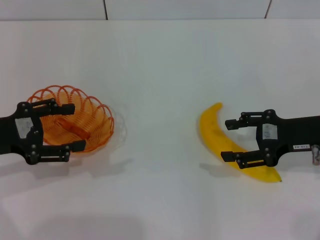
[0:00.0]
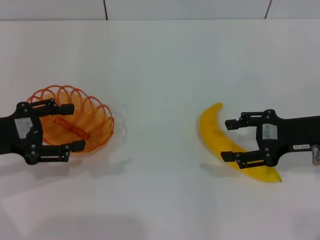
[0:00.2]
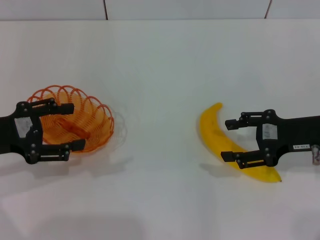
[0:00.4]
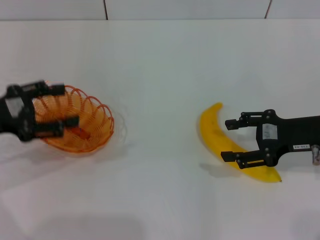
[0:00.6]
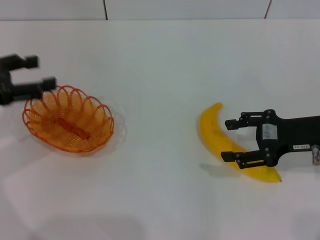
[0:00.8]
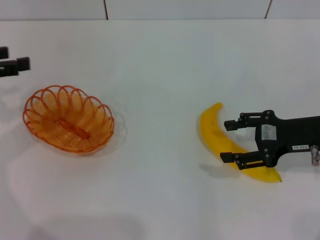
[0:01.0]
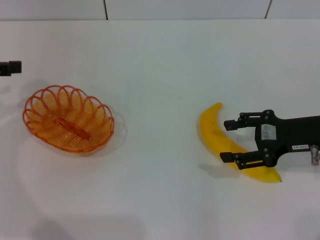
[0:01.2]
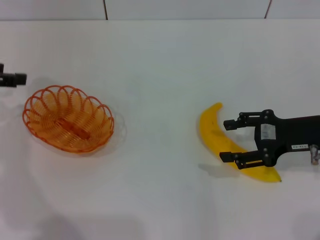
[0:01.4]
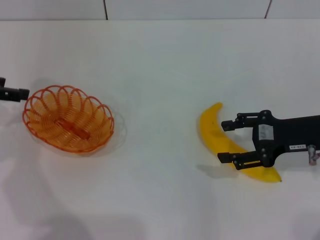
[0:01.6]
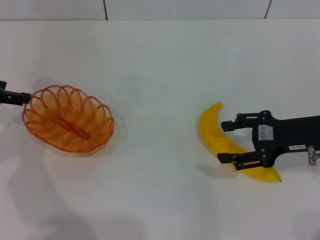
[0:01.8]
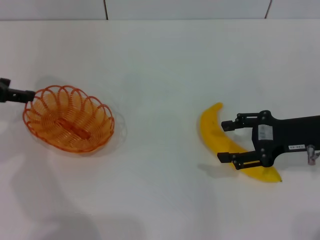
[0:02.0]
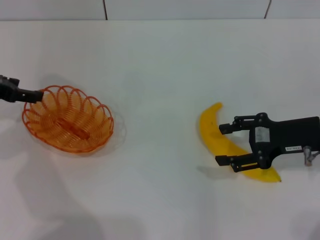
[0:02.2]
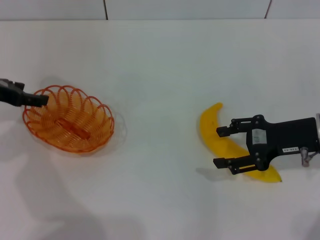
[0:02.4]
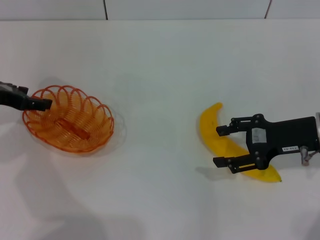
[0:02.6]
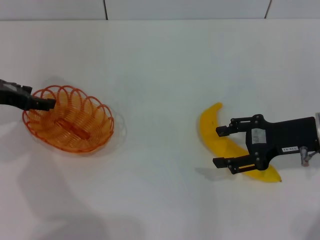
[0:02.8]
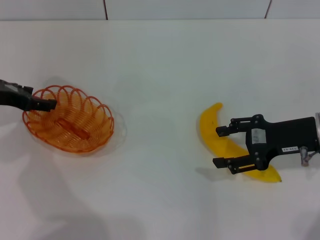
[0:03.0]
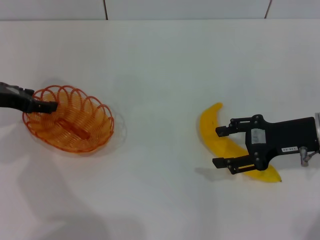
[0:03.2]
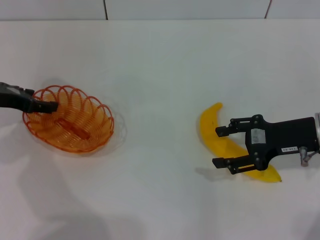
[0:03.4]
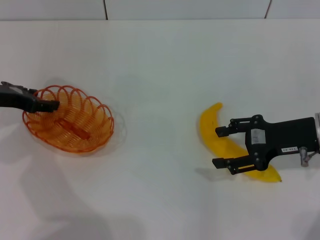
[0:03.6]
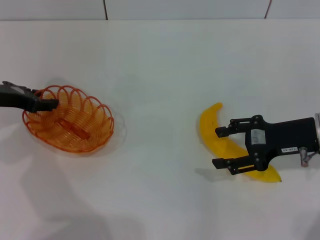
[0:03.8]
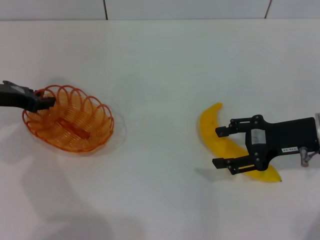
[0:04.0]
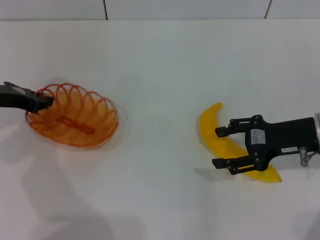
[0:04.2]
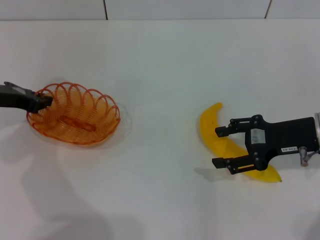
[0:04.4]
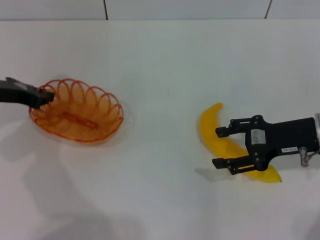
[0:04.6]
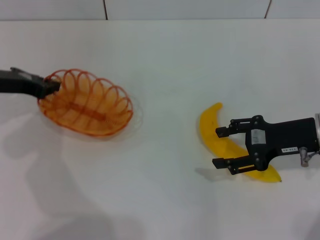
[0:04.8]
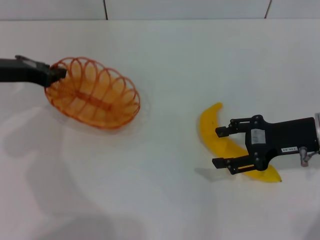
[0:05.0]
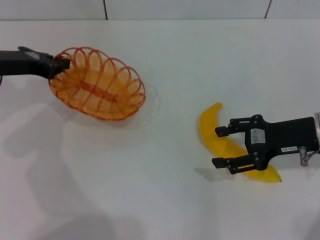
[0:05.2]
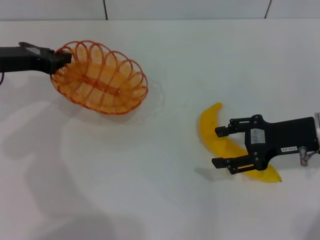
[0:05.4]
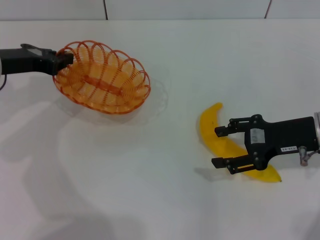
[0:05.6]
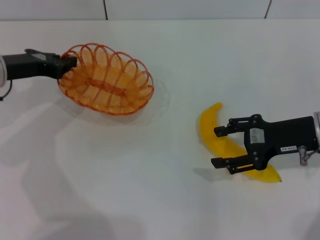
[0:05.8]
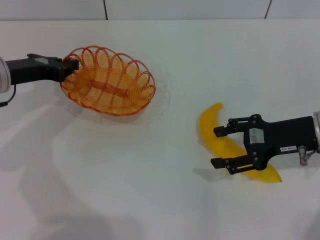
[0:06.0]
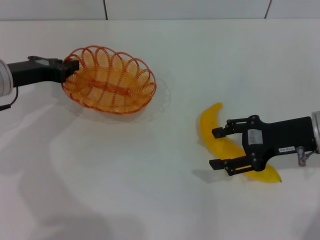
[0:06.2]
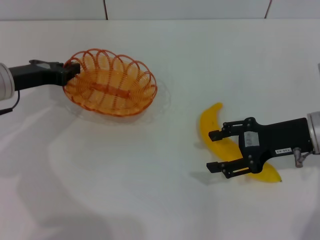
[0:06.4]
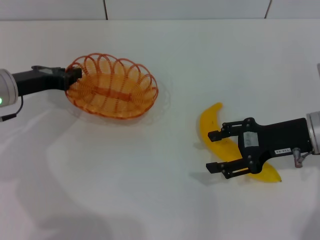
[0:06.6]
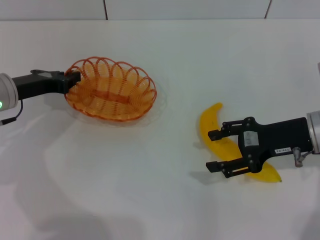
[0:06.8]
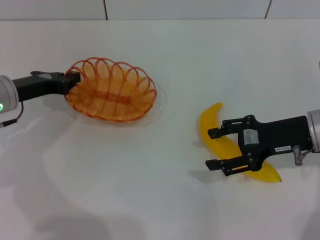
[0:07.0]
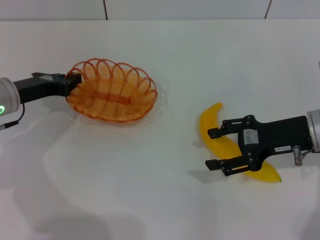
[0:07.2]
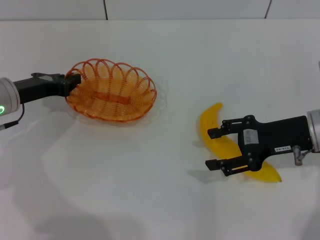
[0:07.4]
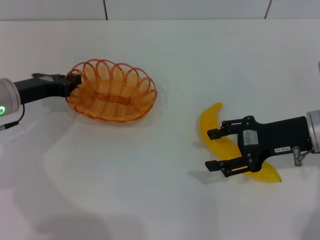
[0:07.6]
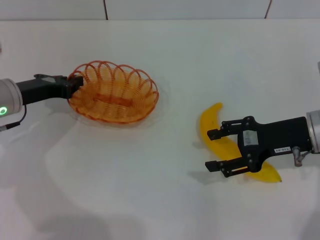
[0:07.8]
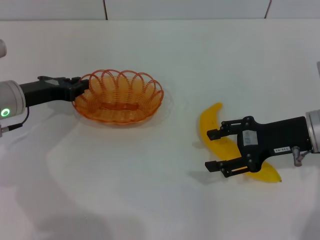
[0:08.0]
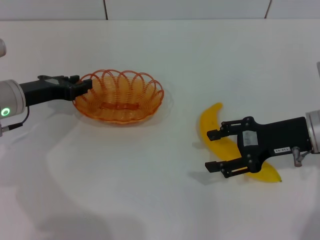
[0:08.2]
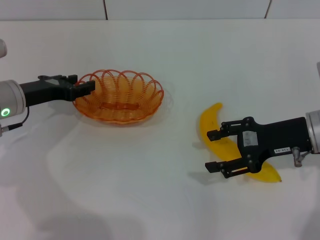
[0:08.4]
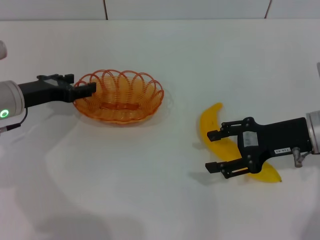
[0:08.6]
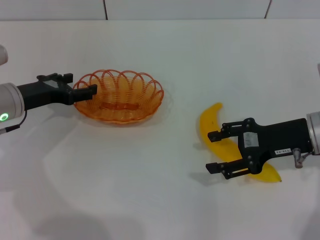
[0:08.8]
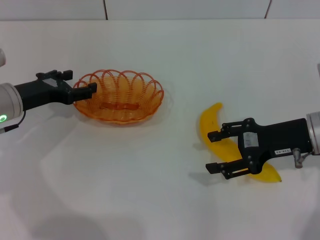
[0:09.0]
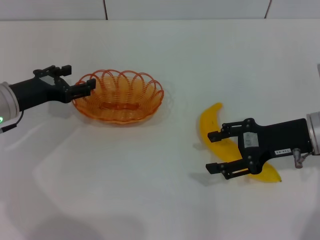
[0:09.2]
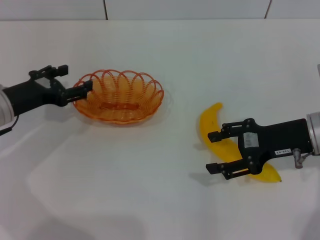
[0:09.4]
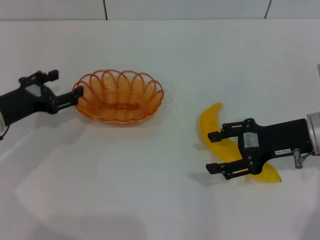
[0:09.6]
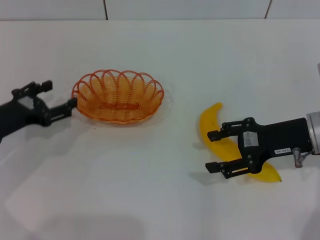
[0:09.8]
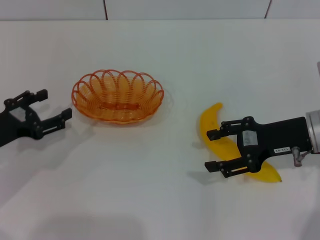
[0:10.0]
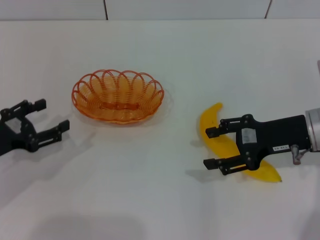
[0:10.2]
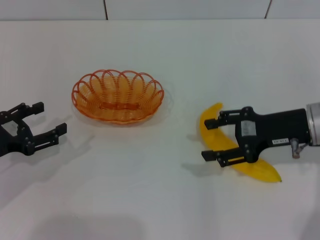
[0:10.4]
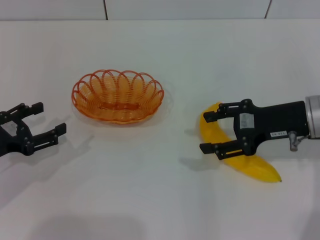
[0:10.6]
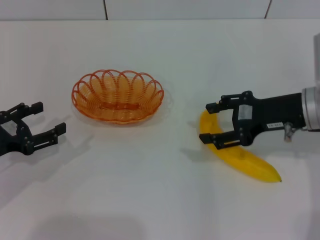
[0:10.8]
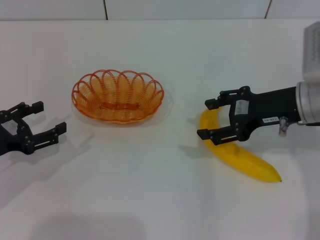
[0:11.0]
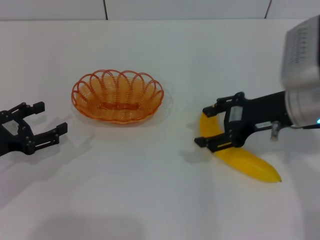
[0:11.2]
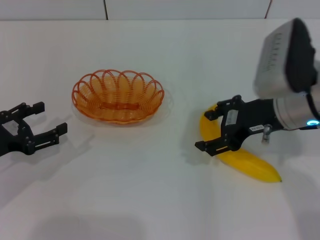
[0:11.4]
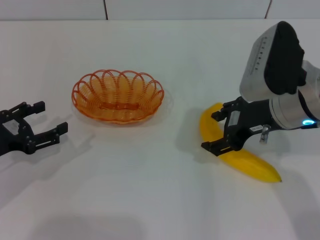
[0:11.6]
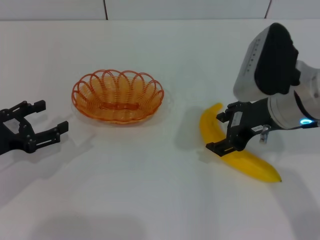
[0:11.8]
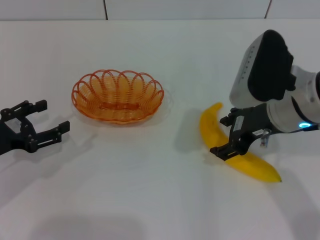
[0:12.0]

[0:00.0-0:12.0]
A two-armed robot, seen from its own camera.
Step, 0.0 to 5.2 s: Pick up the basket with the left gripper.
Step, 5.4 to 9.0 s: Place the basket in the center of view with the left gripper.
0.0 to 1.6 s: The left gripper heads forward and upward, covering roughly 10 cm.
1.6 to 3.0 s: The left gripper ends up about 5 cm from where it was.
3.0 to 4.4 s: The left gripper closes its fingers.
4.4 to 6.0 s: The grippers make only small movements.
6.0 to 7.6 s: The grippers stay close to where they were, moving slightly.
7.6 to 9.0 s: The left gripper opens its fingers.
9.0 to 10.4 s: The left gripper heads backward and to the left, covering approximately 10 cm.
10.4 to 12.0 s: The right gripper goes some 5 cm to the left.

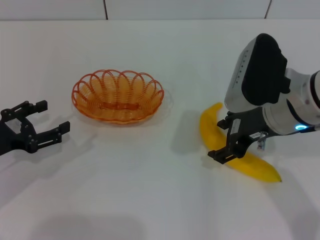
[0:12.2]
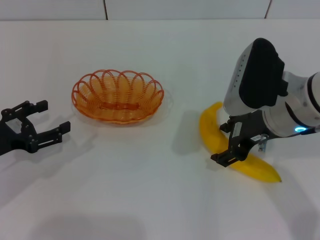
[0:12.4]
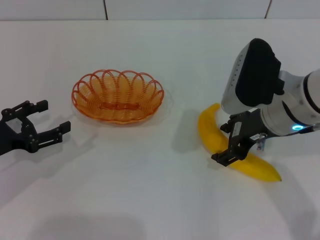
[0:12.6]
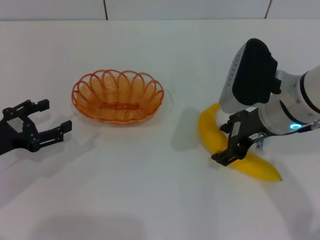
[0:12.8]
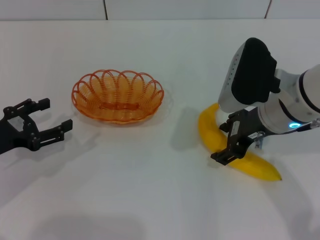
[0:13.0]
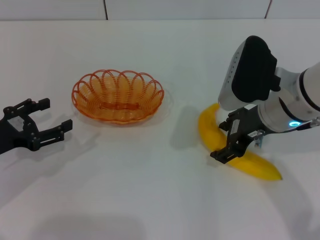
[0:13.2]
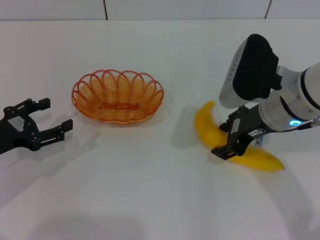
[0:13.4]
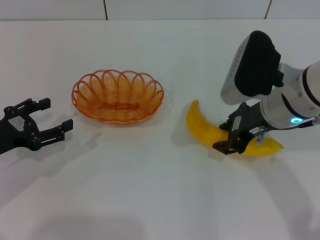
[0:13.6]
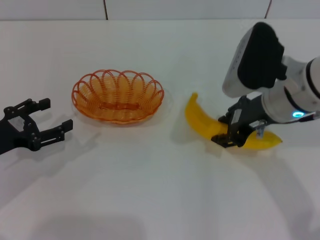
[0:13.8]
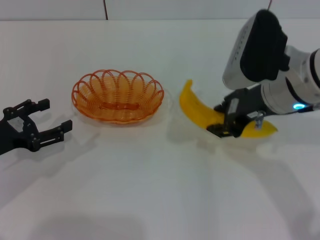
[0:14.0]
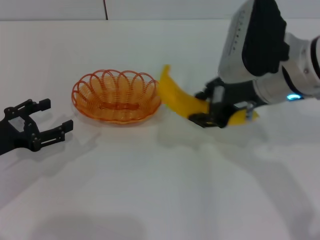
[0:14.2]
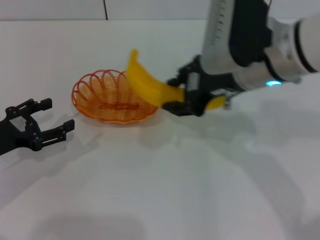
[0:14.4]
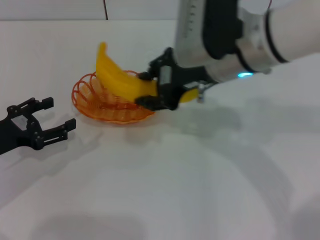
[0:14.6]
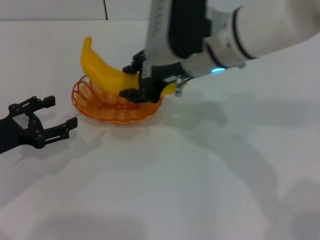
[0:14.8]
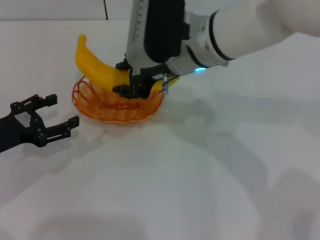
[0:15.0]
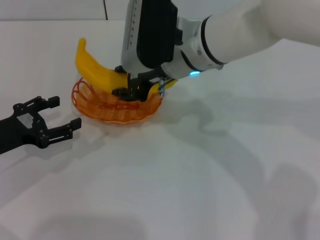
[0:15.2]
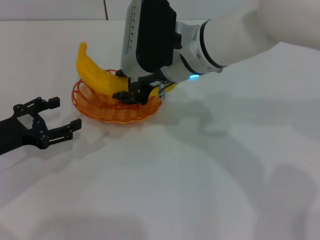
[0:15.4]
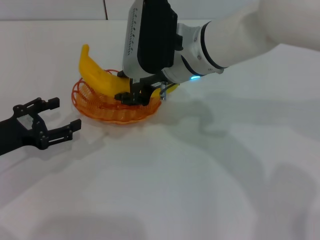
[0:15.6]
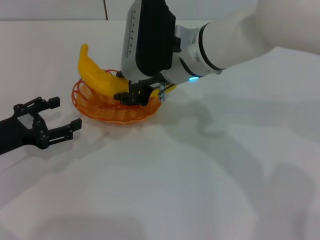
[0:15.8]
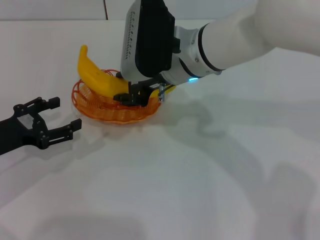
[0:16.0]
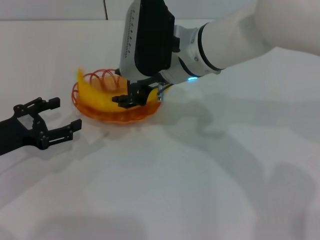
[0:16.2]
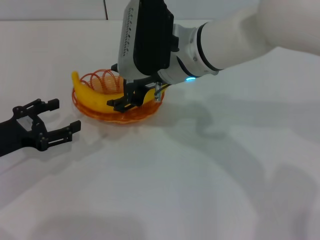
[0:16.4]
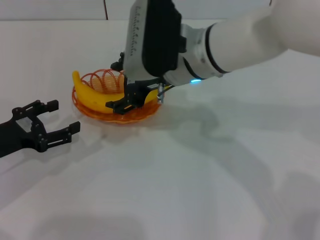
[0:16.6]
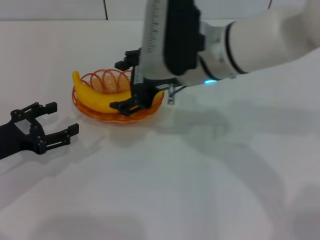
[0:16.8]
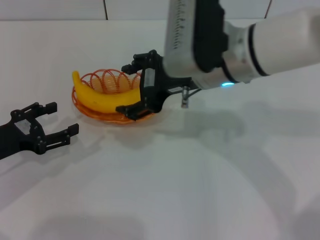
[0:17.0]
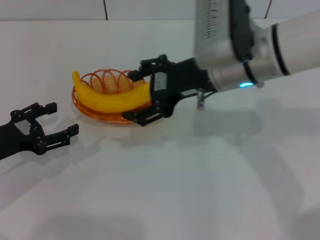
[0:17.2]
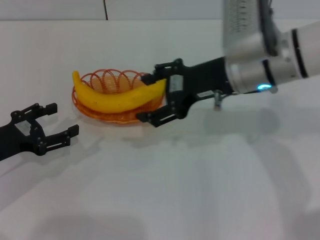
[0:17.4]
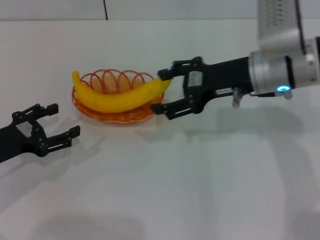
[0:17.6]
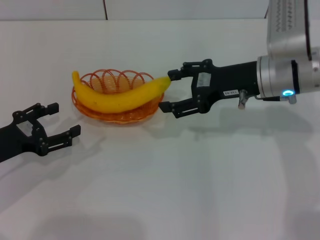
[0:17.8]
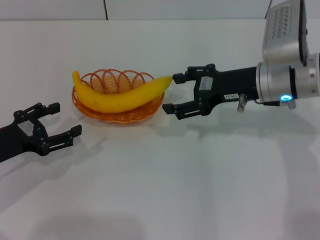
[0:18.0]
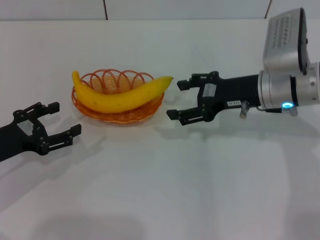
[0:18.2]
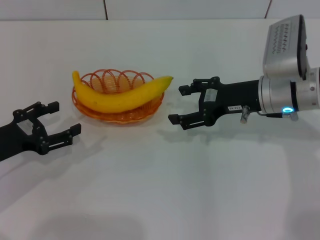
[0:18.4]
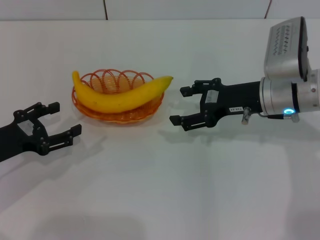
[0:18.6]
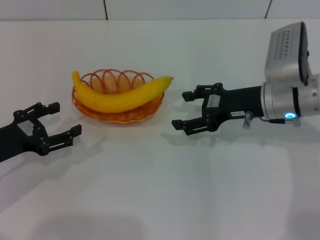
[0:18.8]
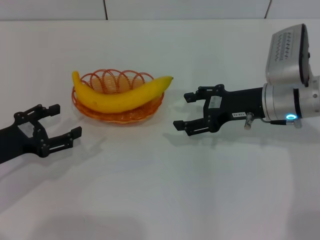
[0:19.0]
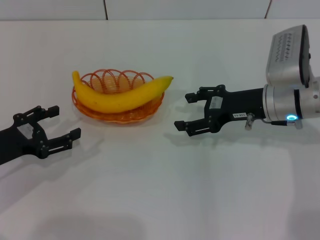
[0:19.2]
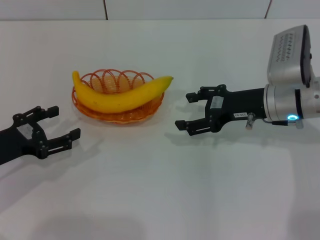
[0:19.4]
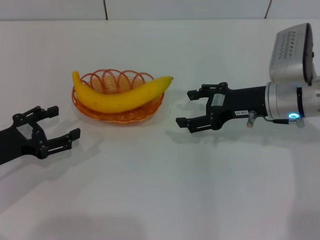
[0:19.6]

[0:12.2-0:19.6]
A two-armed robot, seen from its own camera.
Step, 12.2 to 14.4 s: Pick up the banana with the right gripper.
Step, 14.6 to 17.0 s: Place the banana into the basket with the right gripper.
12.2 to 13.6 s: The grippers move only a little.
13.6 to 15.2 s: The right gripper is displaced to the left and forward by approximately 15 cm.
15.2 to 16.6 s: The right gripper opens its fingers.
16.6 to 18.2 s: The right gripper travels to the right and downward by roughly 15 cm.
18.2 to 19.6 s: The grippers make only small movements.

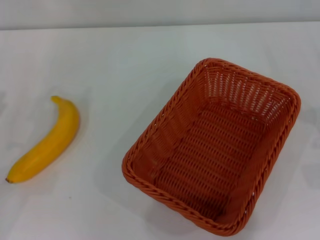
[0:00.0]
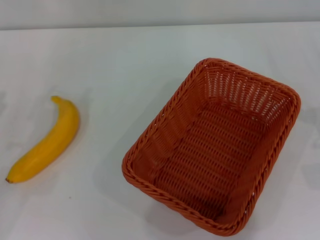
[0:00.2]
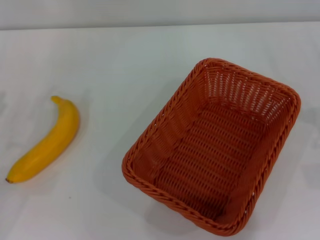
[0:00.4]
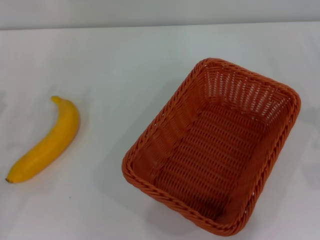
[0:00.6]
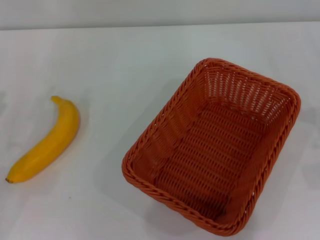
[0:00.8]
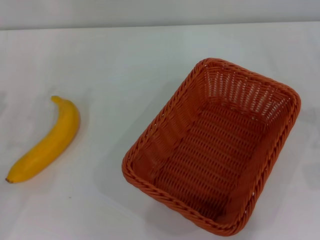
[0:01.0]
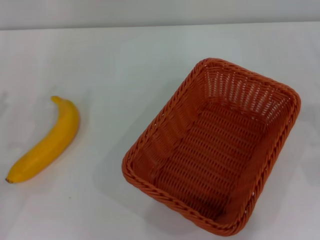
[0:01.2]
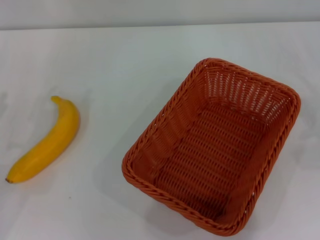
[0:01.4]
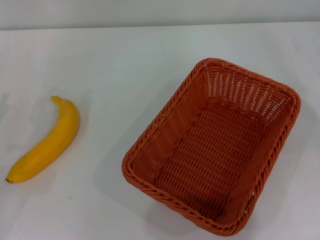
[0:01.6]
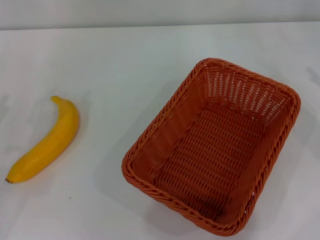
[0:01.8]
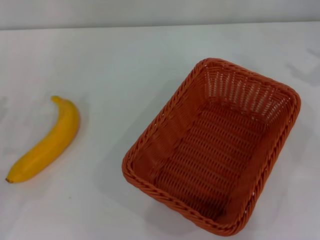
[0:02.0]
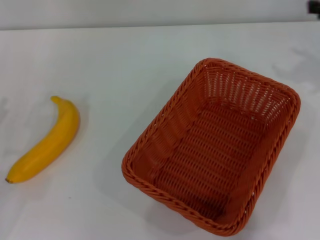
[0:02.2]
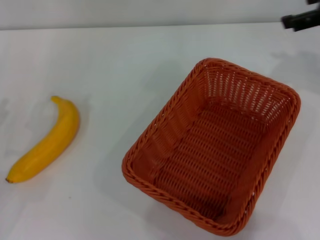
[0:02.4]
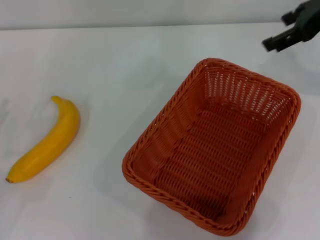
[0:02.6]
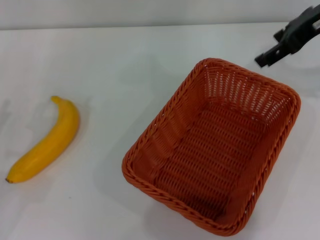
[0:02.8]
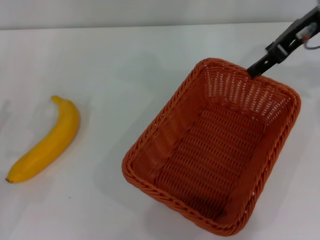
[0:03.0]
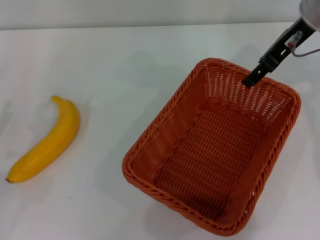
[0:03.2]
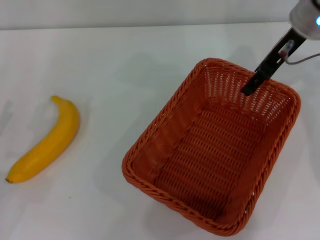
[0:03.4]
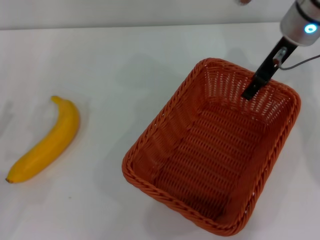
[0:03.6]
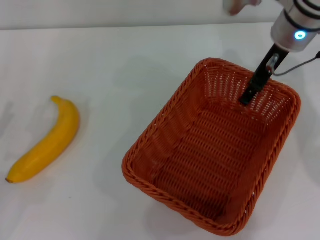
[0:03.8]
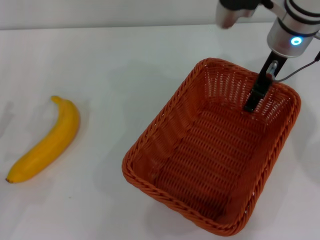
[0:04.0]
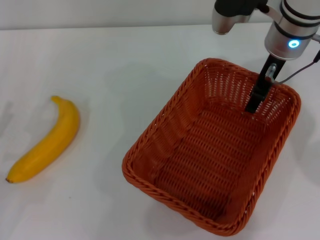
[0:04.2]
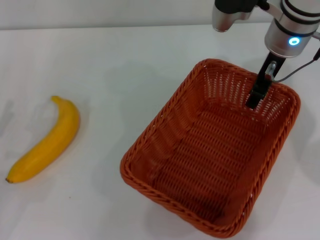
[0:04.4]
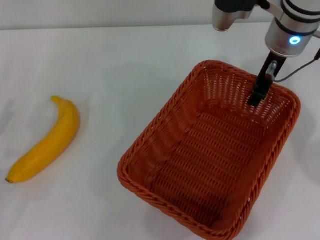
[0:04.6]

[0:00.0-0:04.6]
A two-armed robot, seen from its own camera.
1.6 to 3.0 s: The right gripper shifts about 25 cm to the left, forward and upward.
3.0 to 4.6 s: The right gripper travels to the left and downward by approximately 10 cm, and closes up.
